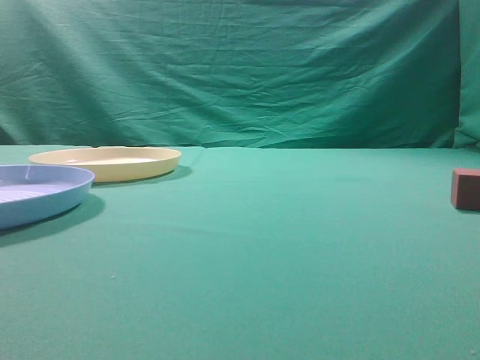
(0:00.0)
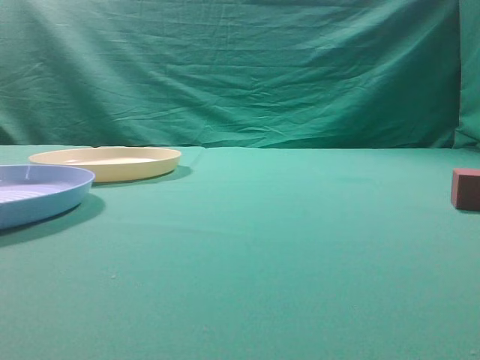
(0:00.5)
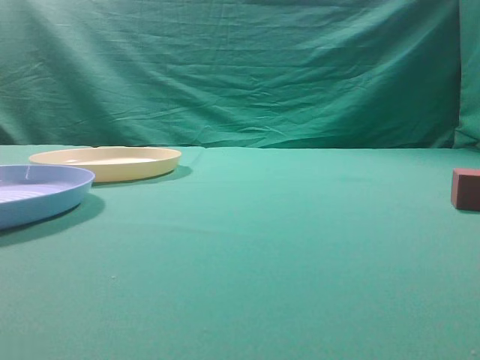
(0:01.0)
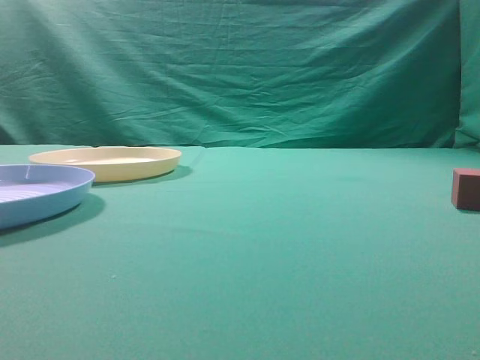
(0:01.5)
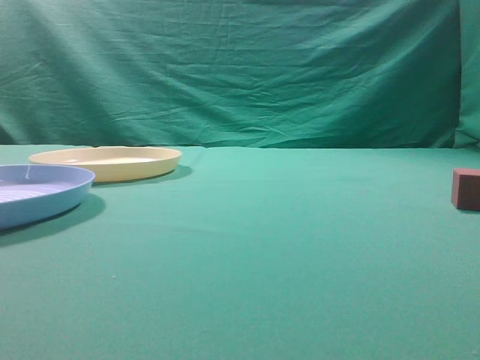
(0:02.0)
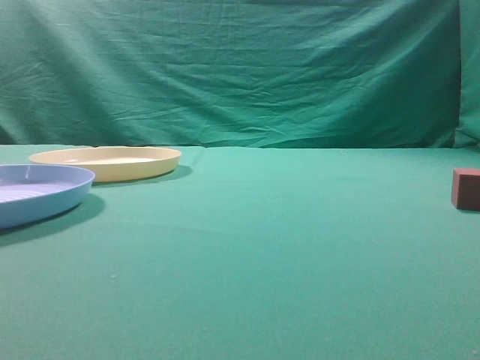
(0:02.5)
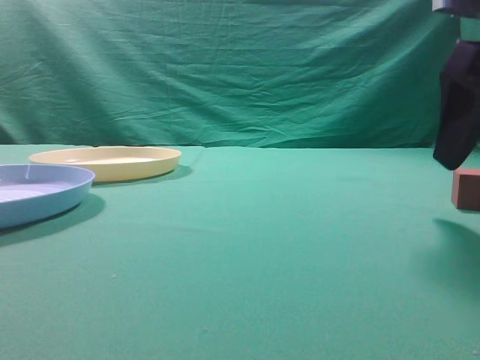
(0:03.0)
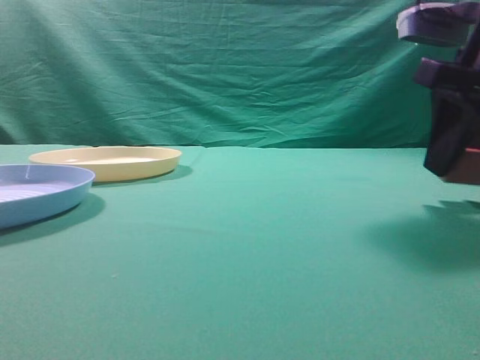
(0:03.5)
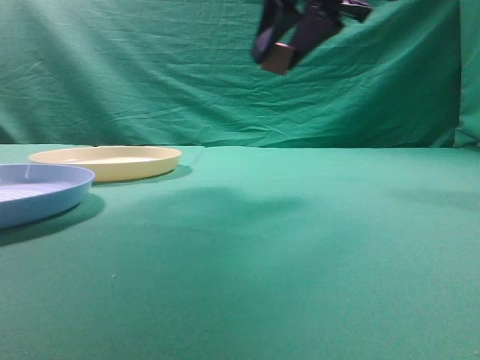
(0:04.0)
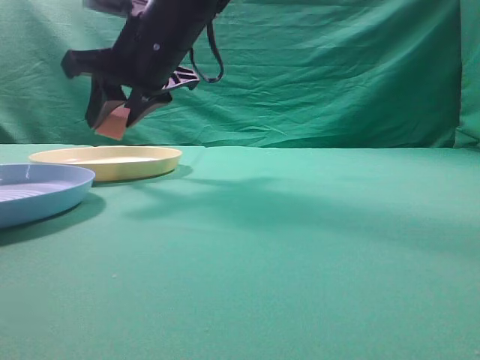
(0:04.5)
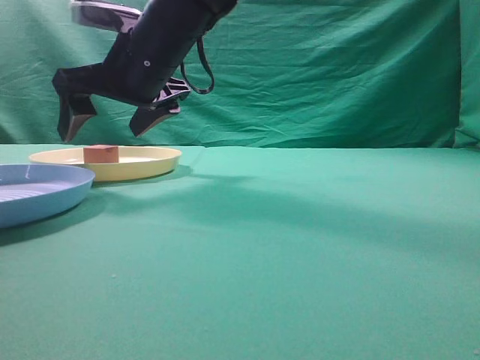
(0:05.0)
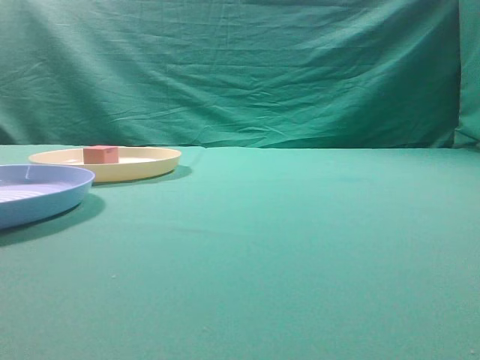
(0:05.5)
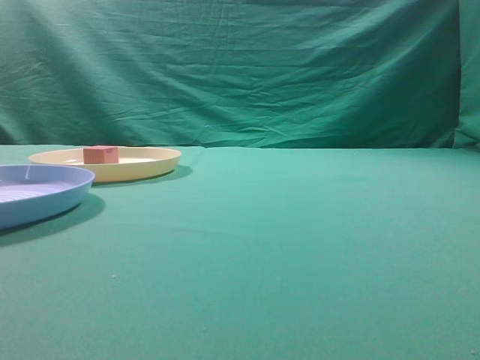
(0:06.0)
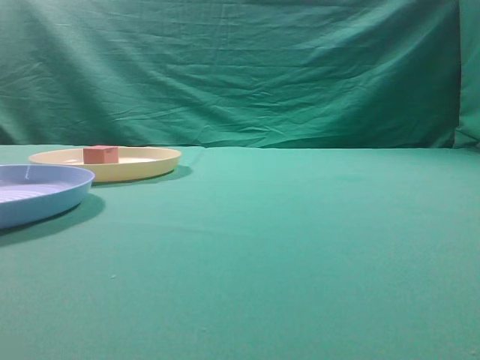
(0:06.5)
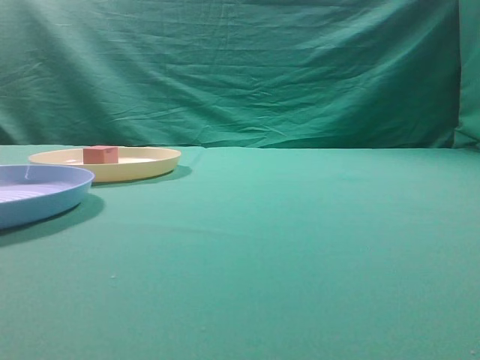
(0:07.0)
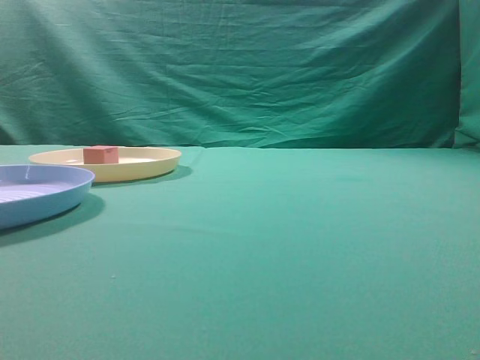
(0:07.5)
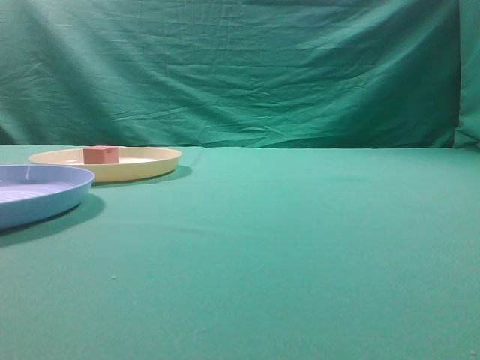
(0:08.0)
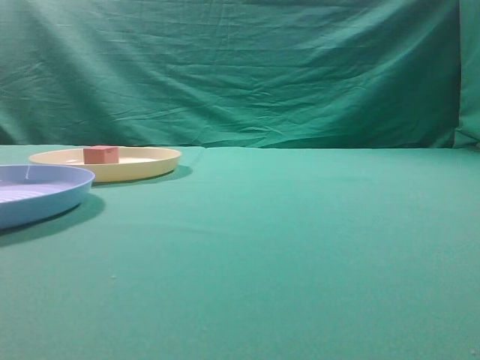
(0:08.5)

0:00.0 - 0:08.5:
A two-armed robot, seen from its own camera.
Task of the whole recording: pick up the cube block from the table and put it on the plate.
Step, 0:00.0 - 0:03.0: Grasp the small cube on the table.
Step, 0:03.5 - 0:04.0: Place it into the yellow plate.
0:02.0 - 0:04.0: The right gripper shifts roughly 30 cm forward and to the left, and opens its fingers.
0:04.0 - 0:06.5: The right gripper shifts roughly 30 cm backward, upward and to the right, and closes up.
